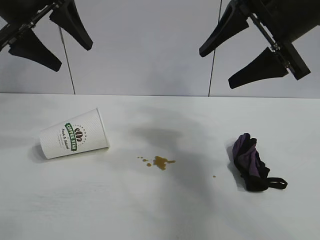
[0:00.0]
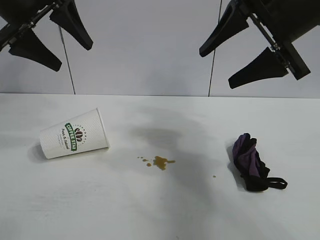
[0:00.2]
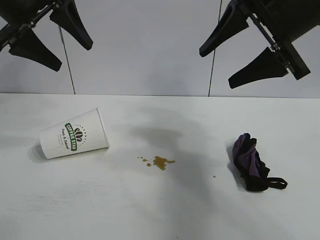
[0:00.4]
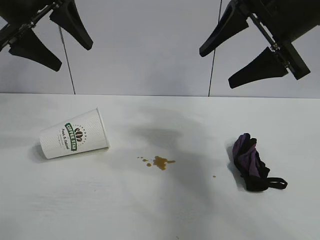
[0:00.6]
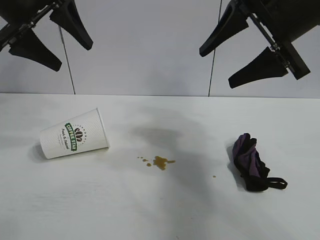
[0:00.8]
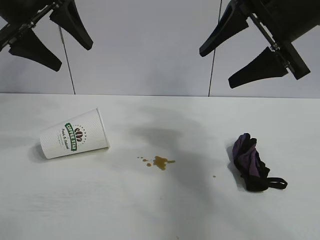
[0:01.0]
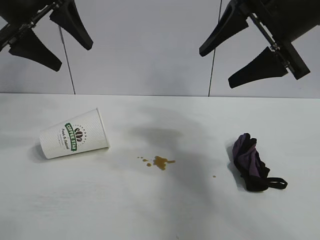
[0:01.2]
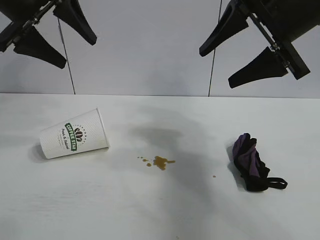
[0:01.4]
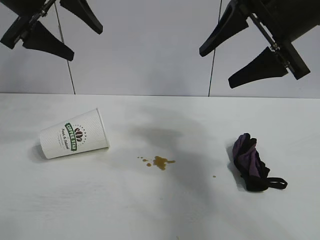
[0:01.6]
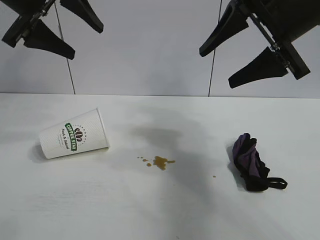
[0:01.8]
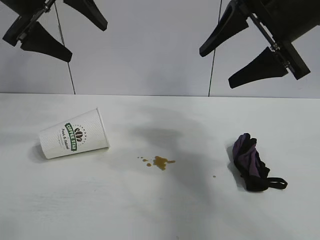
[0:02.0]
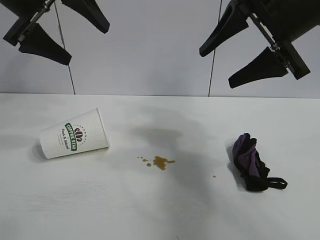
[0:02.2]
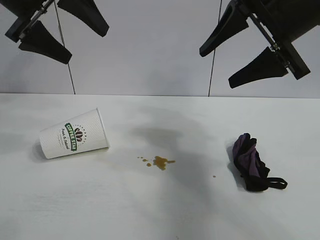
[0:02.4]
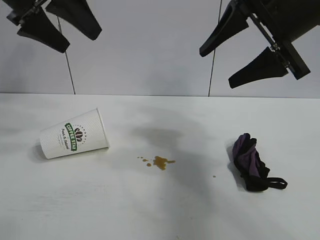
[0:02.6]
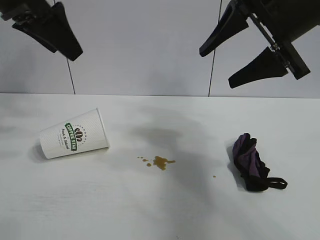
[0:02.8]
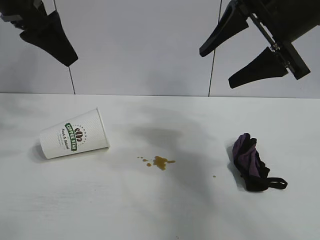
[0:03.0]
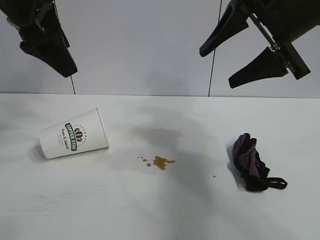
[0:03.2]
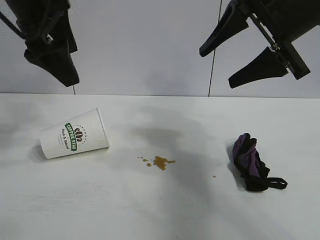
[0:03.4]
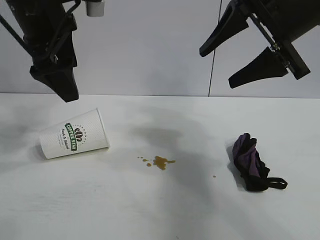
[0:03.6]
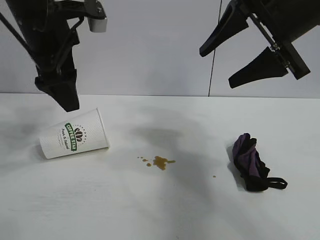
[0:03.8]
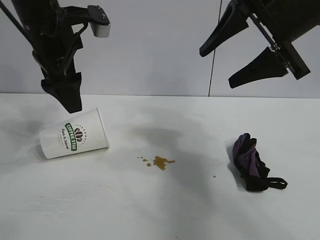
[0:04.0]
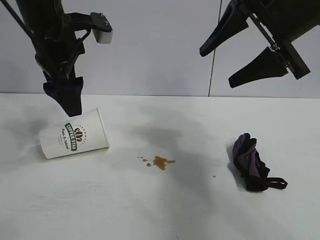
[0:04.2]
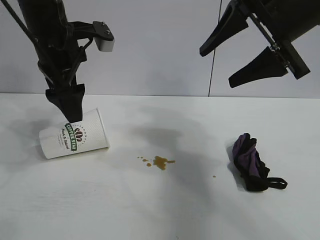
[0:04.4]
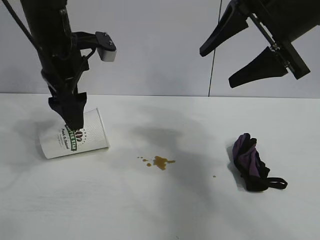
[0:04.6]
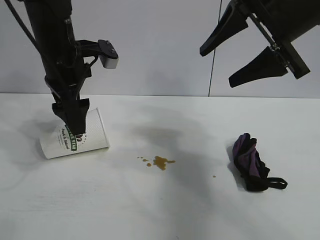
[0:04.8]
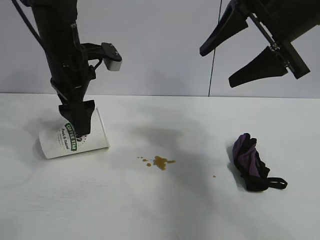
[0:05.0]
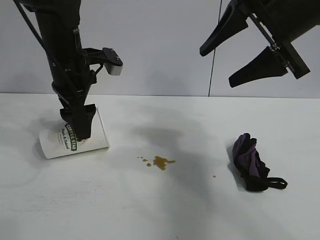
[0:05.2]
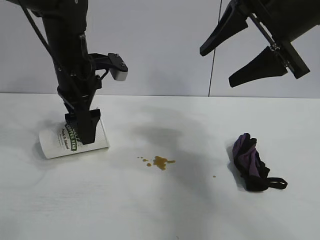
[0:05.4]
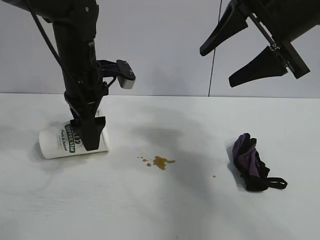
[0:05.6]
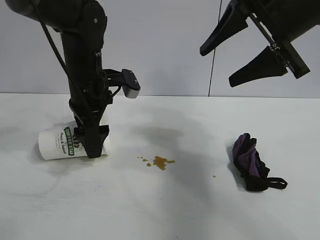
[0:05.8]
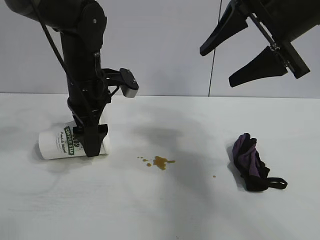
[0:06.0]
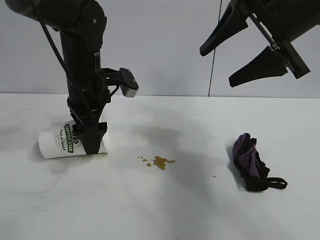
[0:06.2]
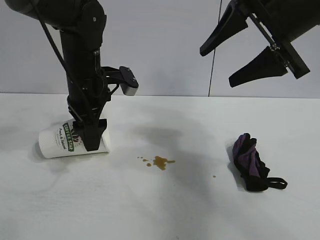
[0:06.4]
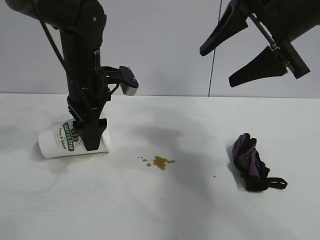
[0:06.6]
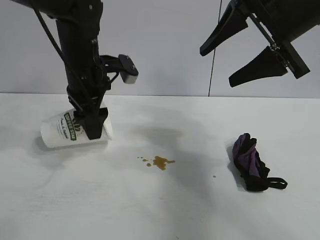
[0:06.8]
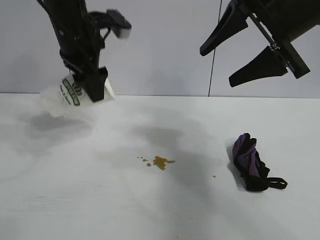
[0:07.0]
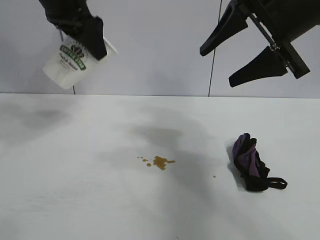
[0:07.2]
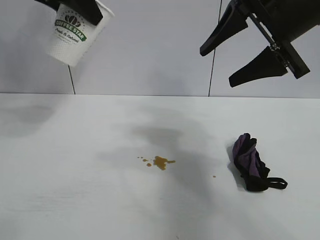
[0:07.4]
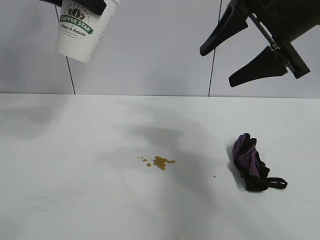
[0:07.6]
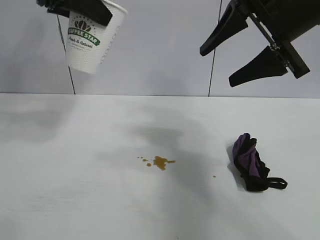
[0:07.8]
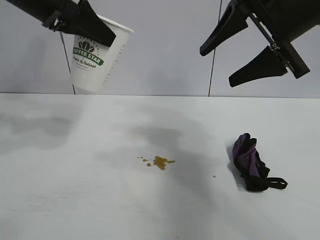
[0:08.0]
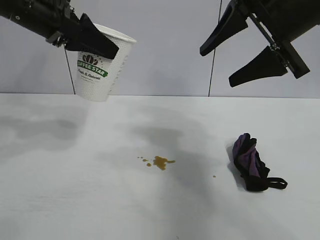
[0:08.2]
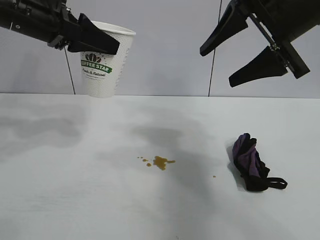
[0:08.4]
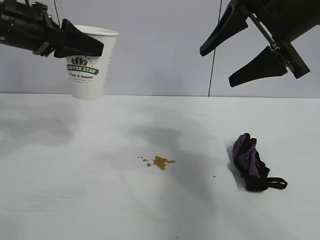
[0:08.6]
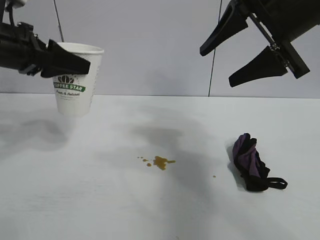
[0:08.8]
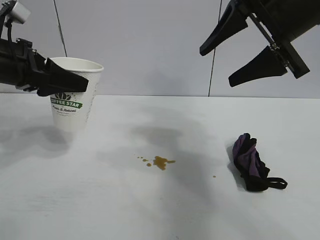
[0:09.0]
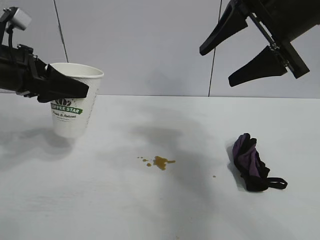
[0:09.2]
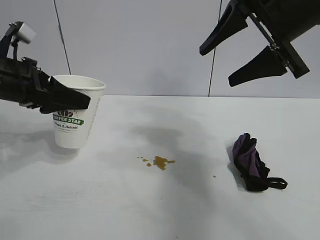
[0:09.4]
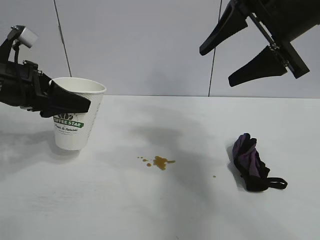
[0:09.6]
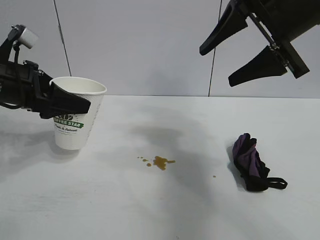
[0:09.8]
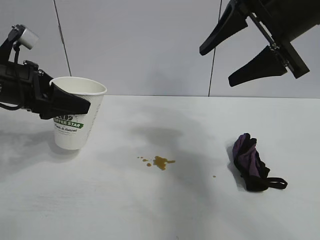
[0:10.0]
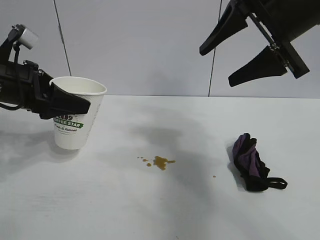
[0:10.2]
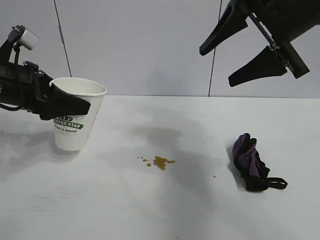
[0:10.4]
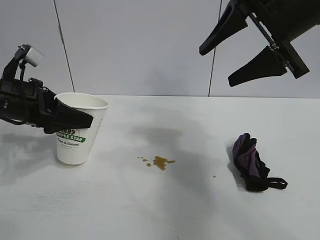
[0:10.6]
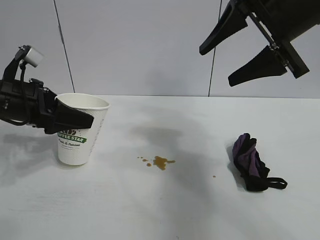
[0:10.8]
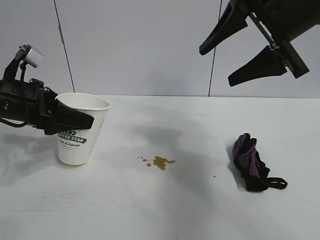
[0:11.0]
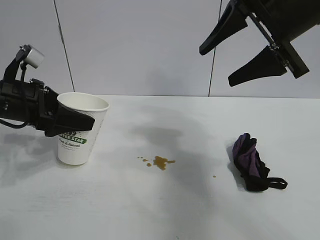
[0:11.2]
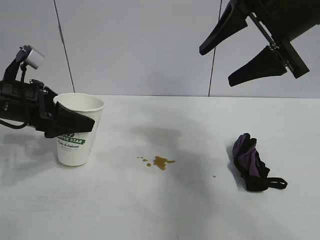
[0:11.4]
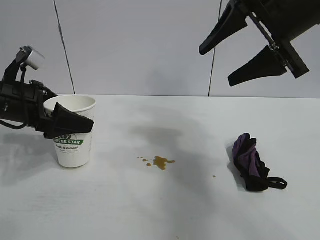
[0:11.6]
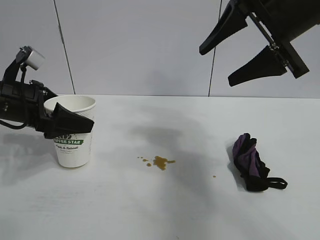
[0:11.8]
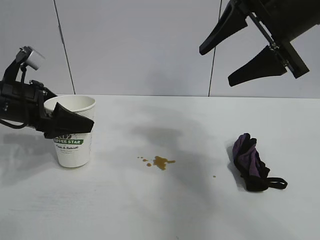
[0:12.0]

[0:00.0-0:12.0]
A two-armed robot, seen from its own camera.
Task of the whole recording: the left gripper pick up the fallen cup and place it upright, the right gripper grasp the black rag and wipe the stain on the table, the right gripper put the black rag back in its original position.
Step, 0:01.4 to 0:06.4: Grasp the paper cup with left gripper.

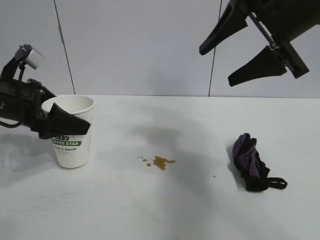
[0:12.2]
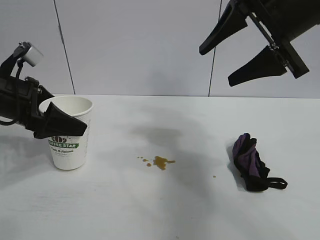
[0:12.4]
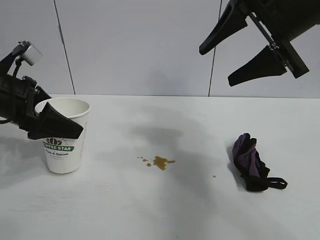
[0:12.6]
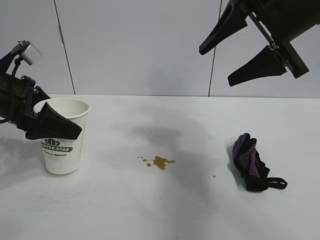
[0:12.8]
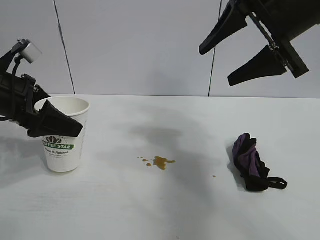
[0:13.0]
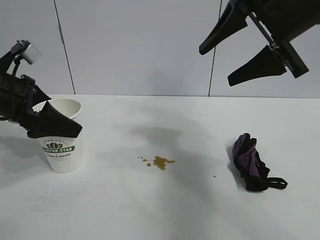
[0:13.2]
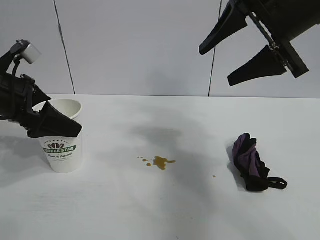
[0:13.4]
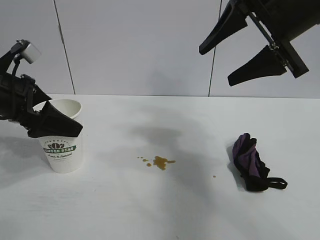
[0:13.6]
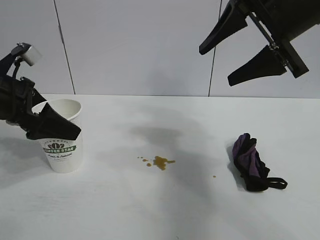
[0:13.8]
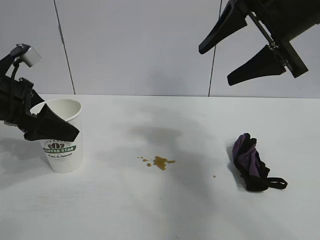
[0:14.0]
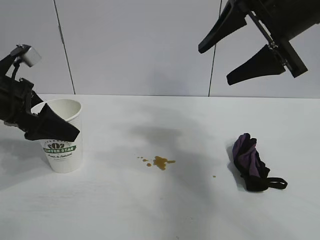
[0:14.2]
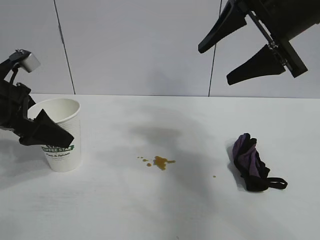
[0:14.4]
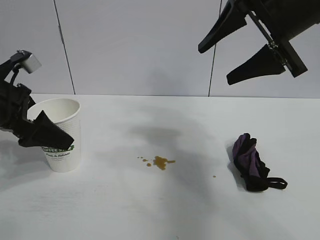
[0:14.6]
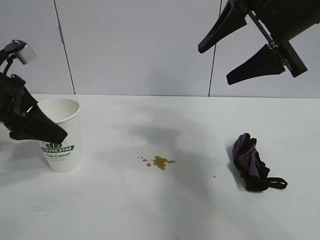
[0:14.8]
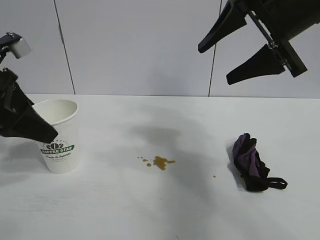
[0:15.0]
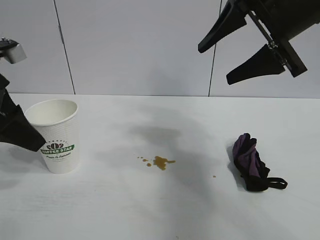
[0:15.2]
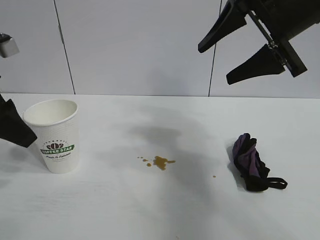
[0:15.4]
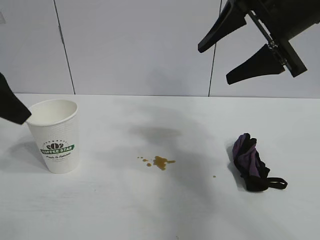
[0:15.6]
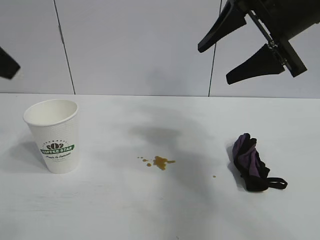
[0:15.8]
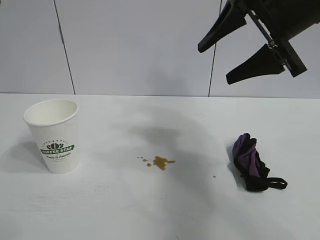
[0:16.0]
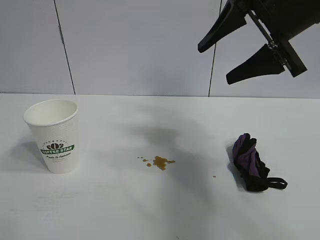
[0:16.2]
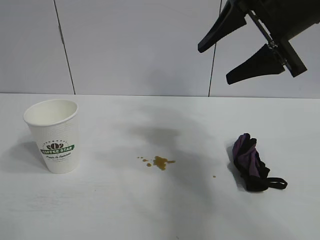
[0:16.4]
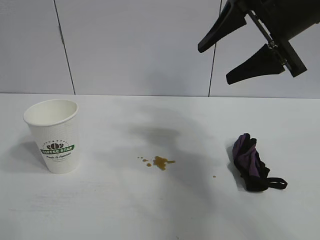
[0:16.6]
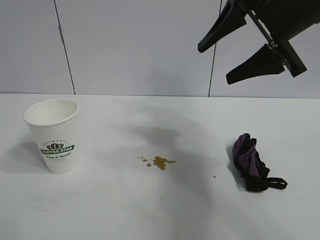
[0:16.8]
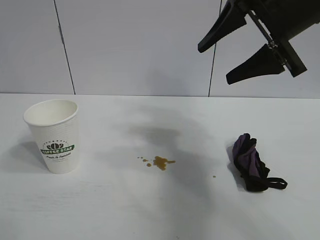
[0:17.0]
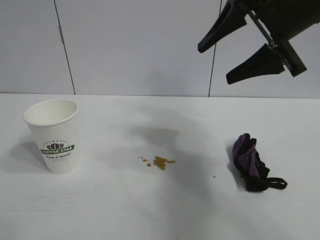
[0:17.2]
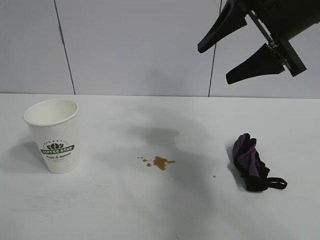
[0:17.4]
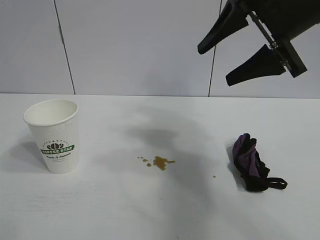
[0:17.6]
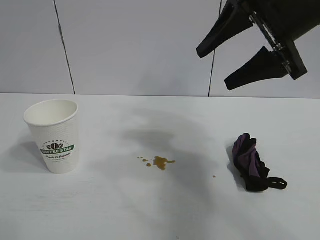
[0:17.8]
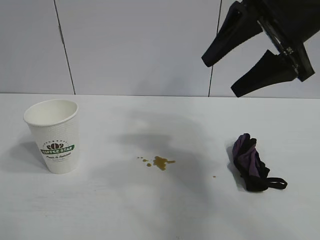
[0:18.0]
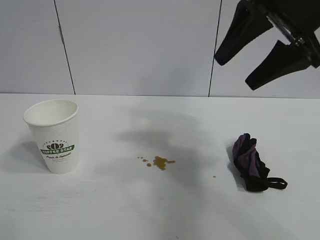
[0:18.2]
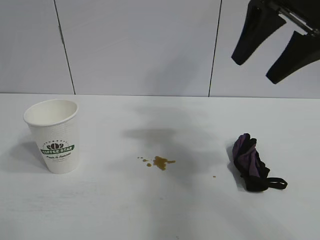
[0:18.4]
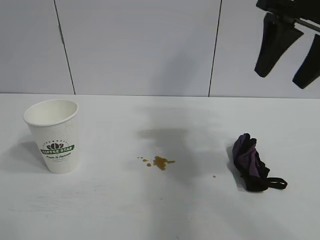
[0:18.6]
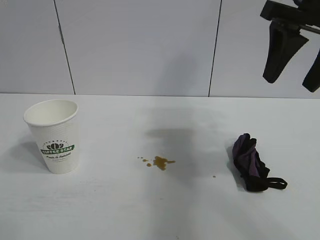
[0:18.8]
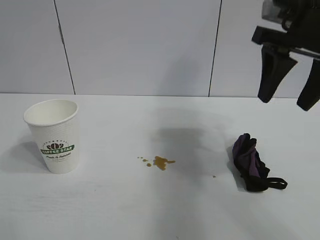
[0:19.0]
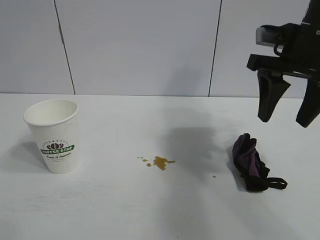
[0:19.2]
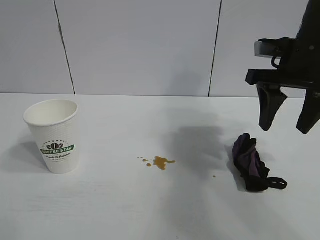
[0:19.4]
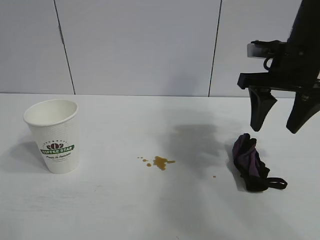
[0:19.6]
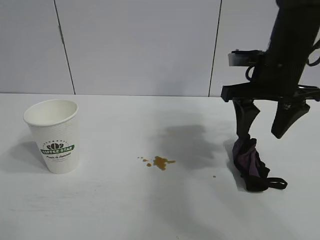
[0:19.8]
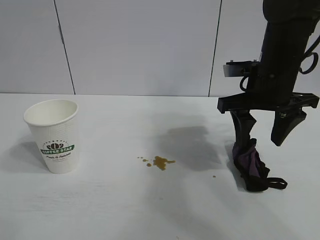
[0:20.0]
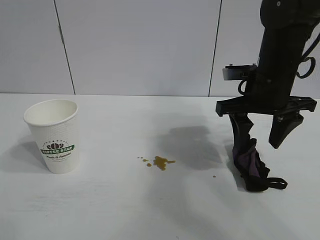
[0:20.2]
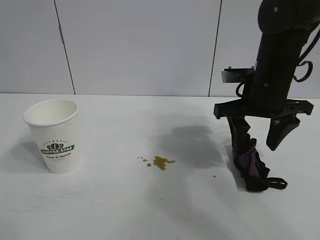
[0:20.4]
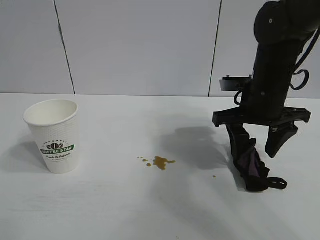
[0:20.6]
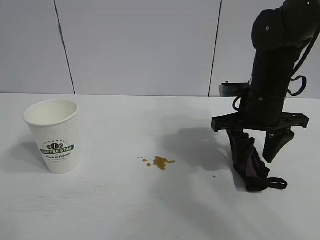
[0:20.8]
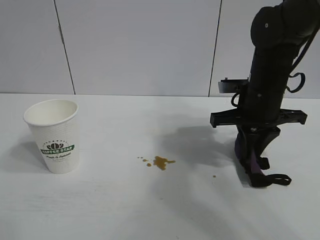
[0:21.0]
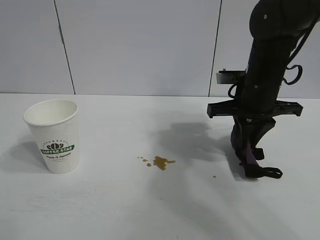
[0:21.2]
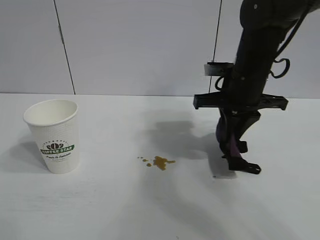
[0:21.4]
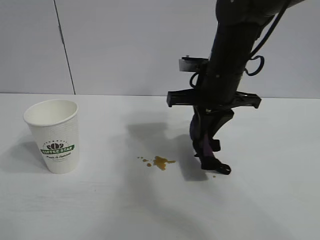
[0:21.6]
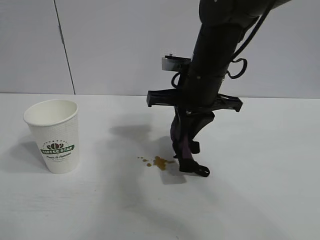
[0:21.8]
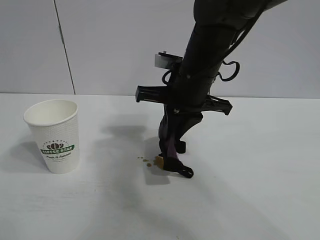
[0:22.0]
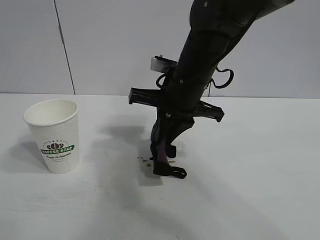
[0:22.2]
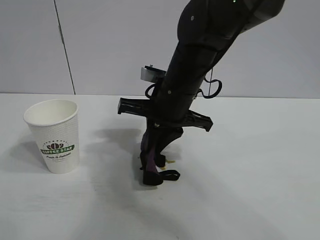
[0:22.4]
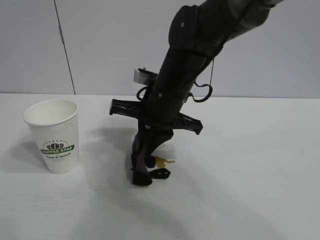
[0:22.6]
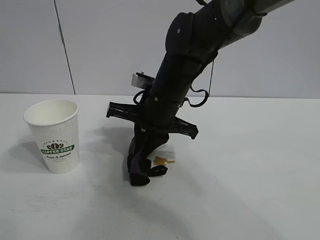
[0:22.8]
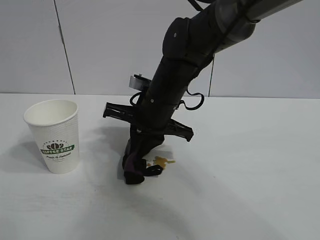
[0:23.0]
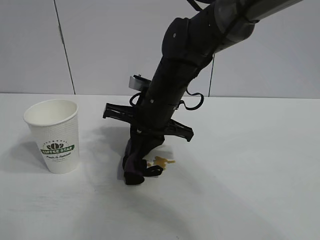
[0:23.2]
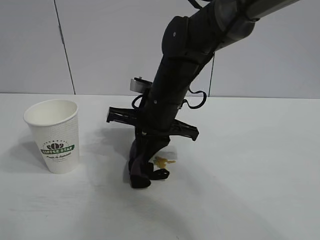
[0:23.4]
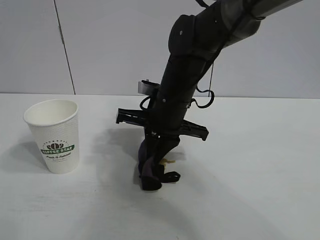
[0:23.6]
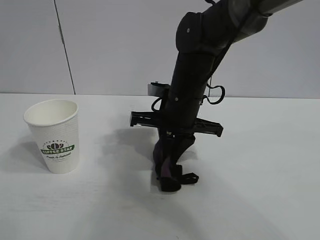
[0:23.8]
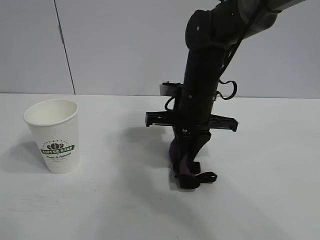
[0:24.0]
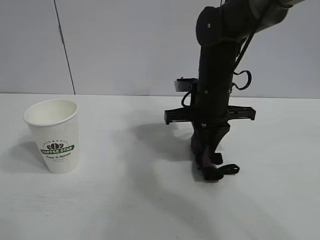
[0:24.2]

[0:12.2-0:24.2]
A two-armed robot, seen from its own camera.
Task of the whole recording: the left gripper pick up the fallen cup and place it upright, the right gripper grasp the black rag and wipe the stain on the table, the right gripper put the black rag back in its original position.
Step, 0:13.4 to 0:20.8: Grasp the rag with right gripper.
